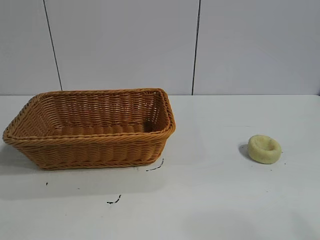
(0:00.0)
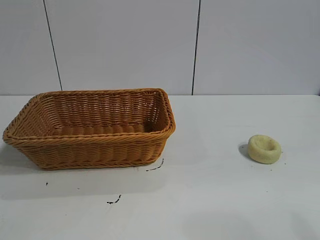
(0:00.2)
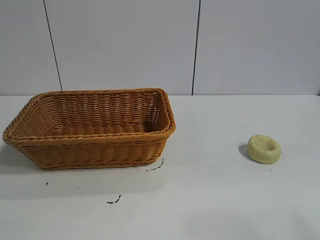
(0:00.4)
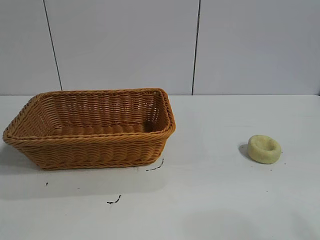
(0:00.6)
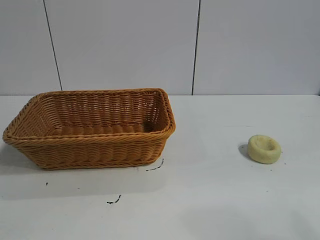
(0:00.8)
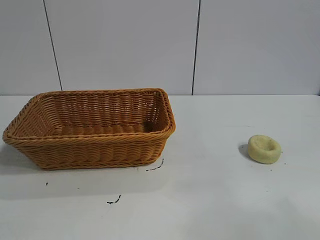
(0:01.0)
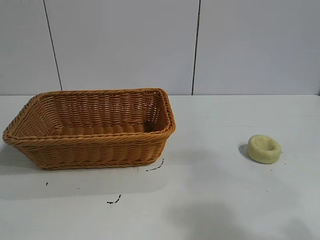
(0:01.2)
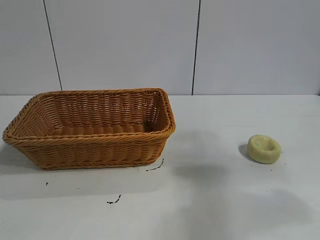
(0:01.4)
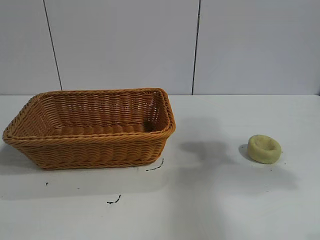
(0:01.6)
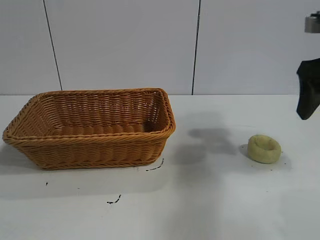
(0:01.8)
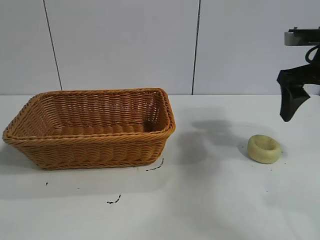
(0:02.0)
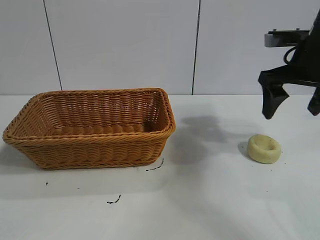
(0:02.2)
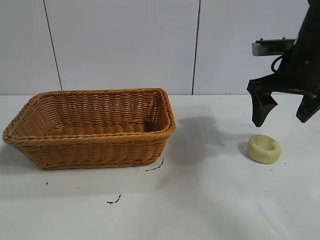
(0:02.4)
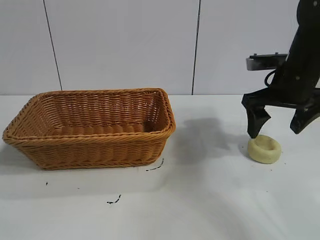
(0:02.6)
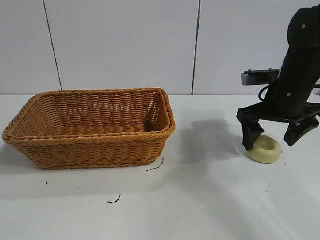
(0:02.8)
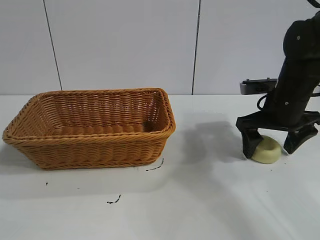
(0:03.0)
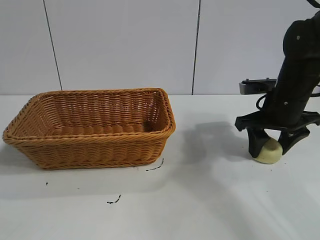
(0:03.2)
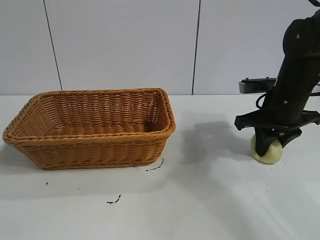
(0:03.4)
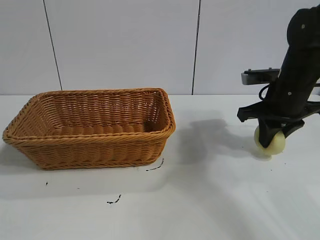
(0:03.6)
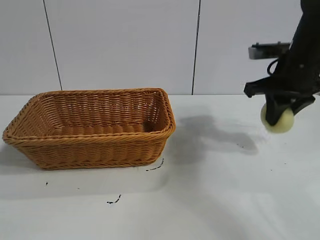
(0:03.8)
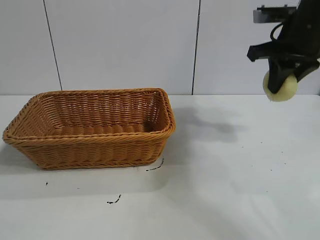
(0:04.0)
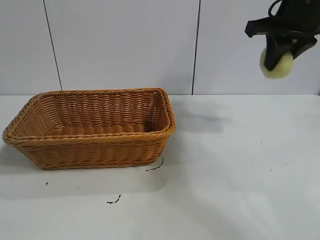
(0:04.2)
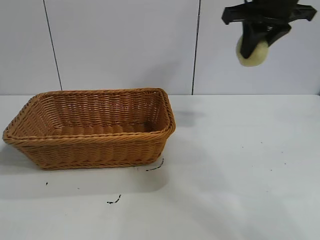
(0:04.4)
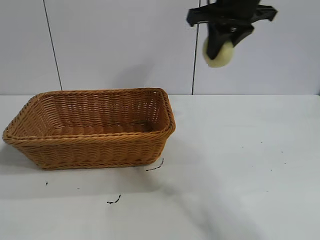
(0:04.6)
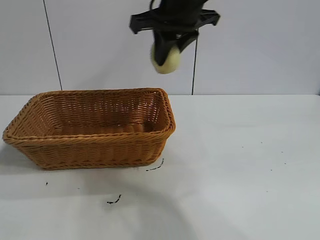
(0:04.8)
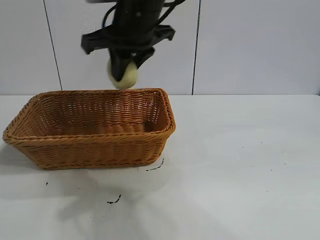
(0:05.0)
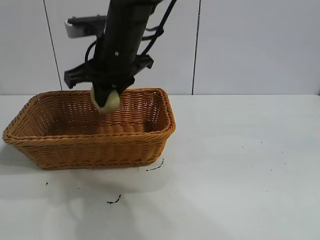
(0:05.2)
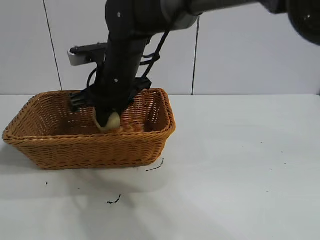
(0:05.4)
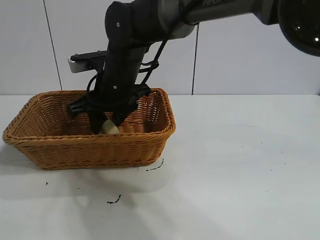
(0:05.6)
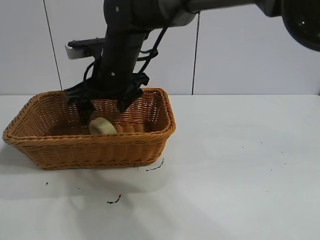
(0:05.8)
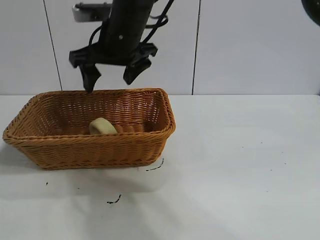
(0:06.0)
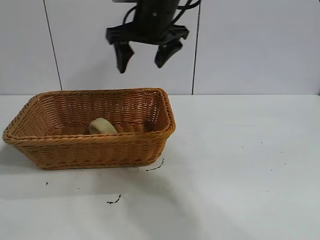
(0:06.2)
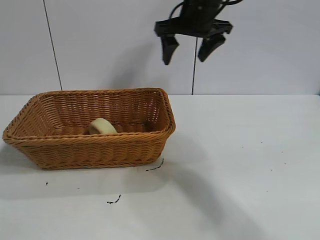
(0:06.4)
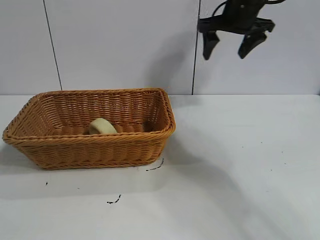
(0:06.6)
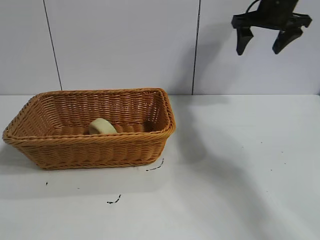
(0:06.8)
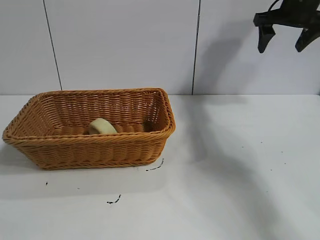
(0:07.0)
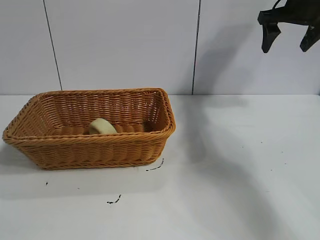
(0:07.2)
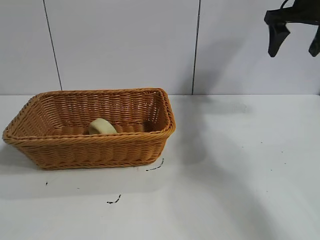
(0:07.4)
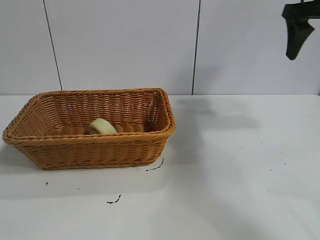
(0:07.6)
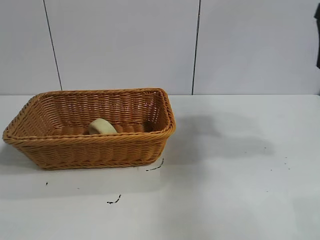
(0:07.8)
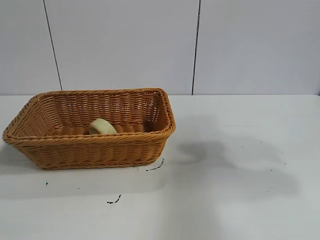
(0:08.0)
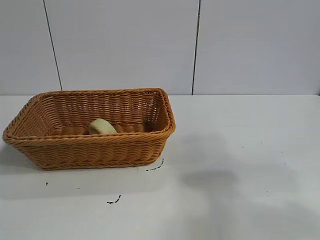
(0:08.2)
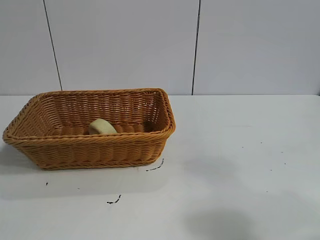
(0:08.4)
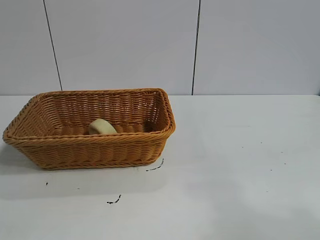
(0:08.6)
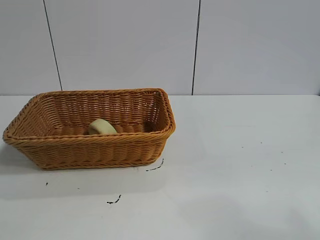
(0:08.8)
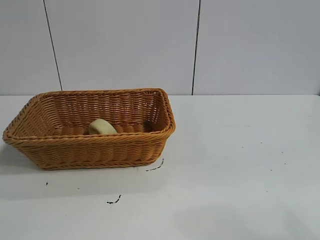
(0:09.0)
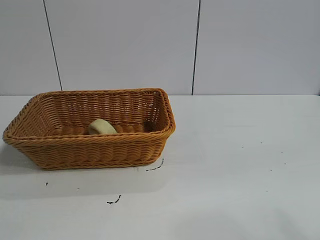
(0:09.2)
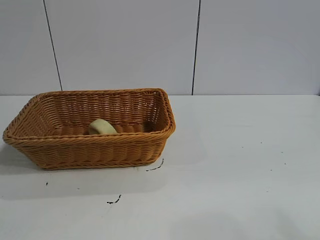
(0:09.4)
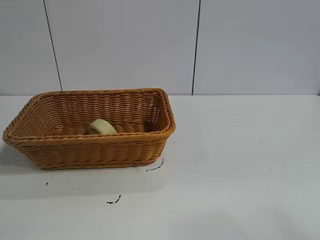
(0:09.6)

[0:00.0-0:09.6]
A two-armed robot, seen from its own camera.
Task of the whole recording: pick up the egg yolk pastry and put it into the basket.
Step, 0:00.8 to 0:03.4: Grasp egg yolk pastry with right gripper.
Step, 0:03.6 to 0:05.8: Place the egg yolk pastry in the basket with right gripper.
